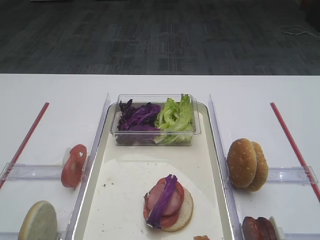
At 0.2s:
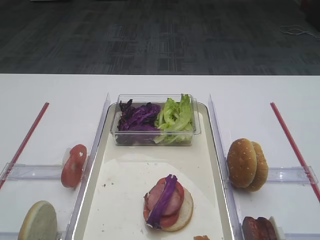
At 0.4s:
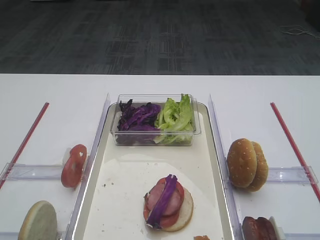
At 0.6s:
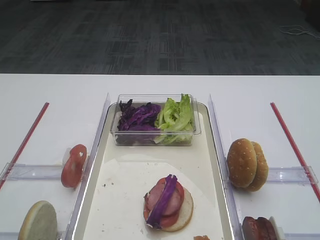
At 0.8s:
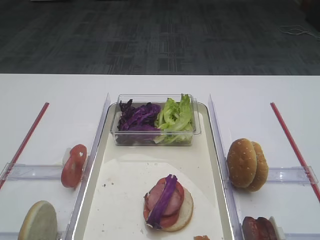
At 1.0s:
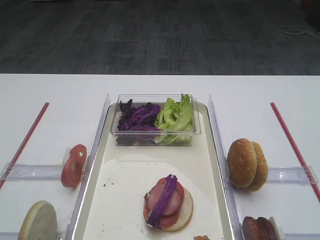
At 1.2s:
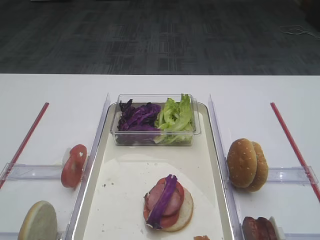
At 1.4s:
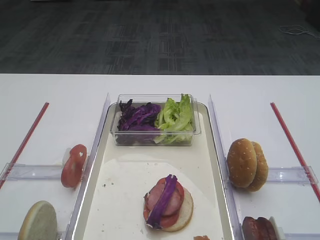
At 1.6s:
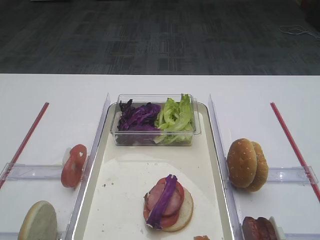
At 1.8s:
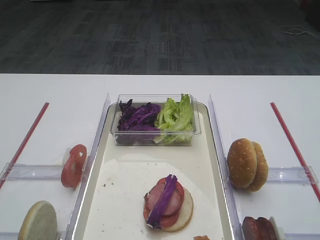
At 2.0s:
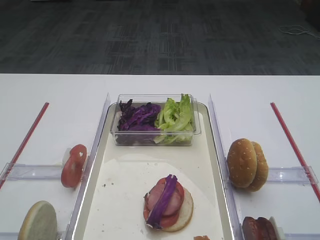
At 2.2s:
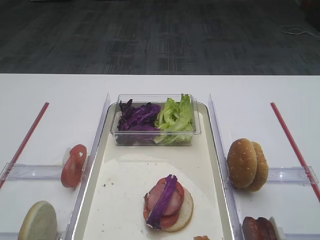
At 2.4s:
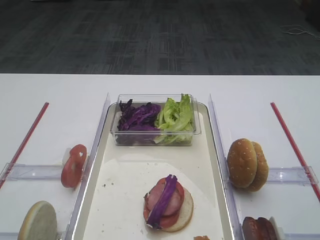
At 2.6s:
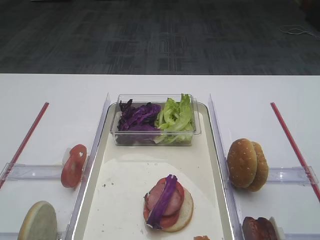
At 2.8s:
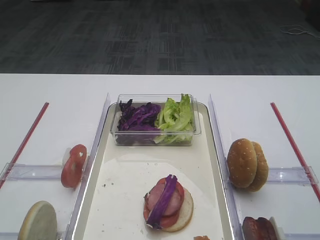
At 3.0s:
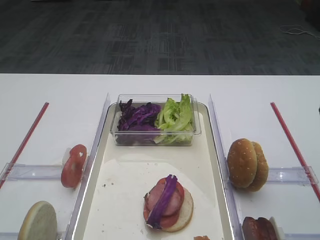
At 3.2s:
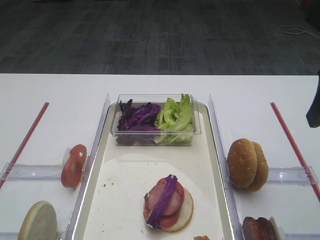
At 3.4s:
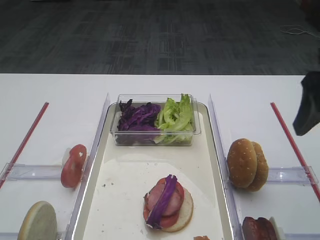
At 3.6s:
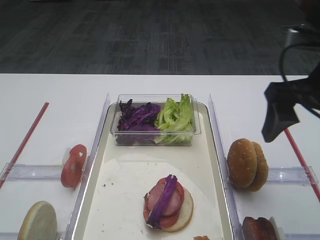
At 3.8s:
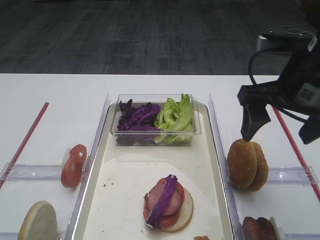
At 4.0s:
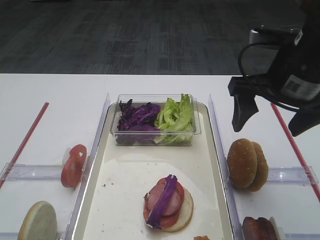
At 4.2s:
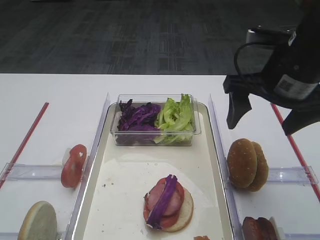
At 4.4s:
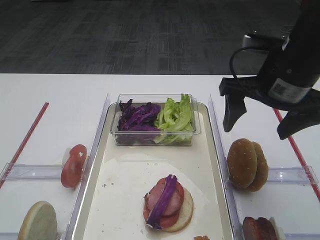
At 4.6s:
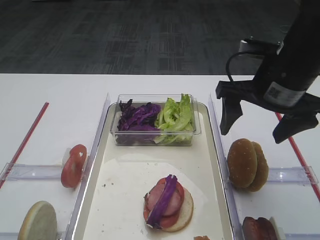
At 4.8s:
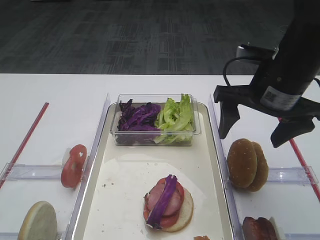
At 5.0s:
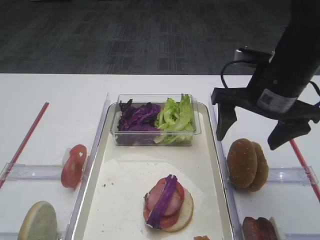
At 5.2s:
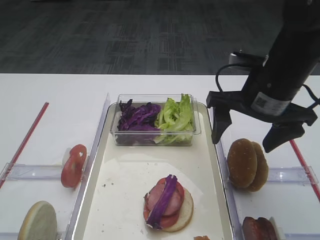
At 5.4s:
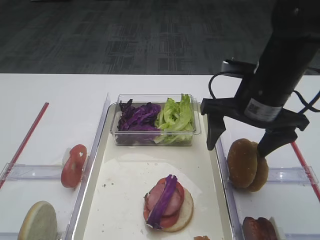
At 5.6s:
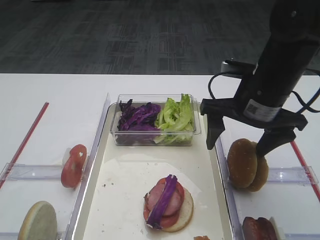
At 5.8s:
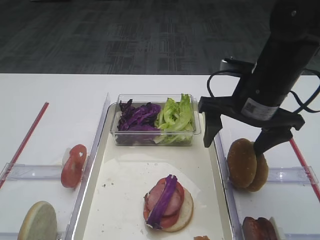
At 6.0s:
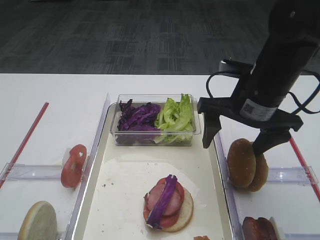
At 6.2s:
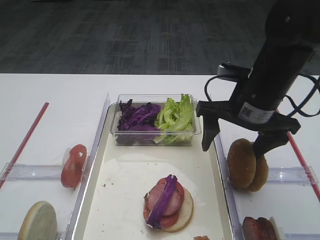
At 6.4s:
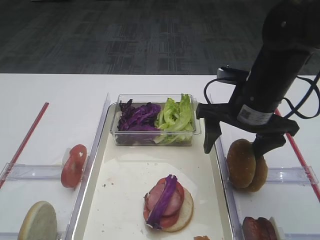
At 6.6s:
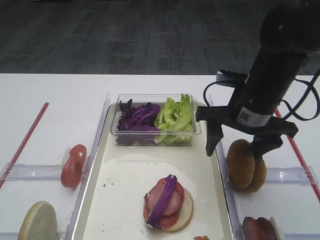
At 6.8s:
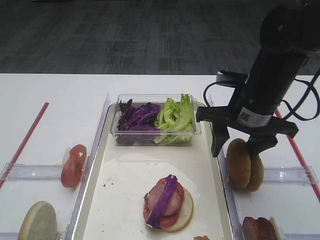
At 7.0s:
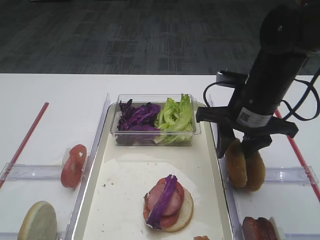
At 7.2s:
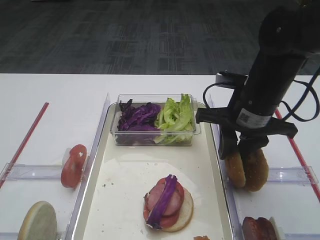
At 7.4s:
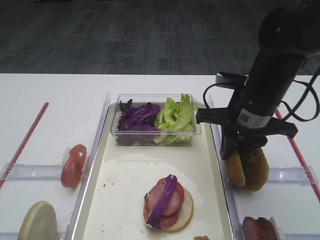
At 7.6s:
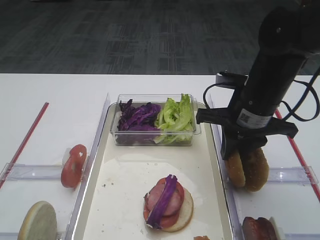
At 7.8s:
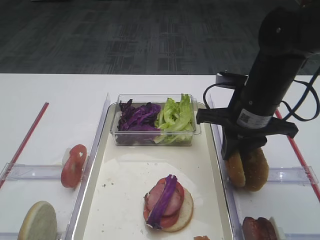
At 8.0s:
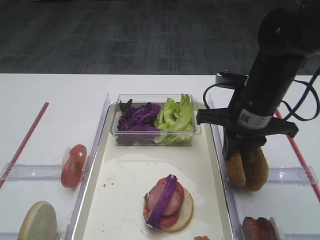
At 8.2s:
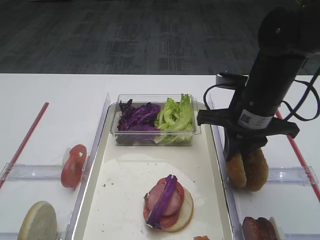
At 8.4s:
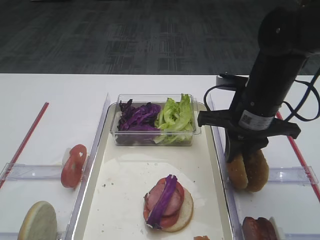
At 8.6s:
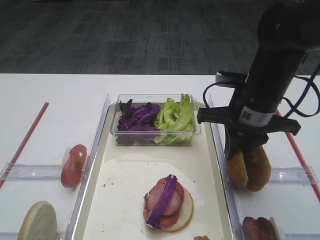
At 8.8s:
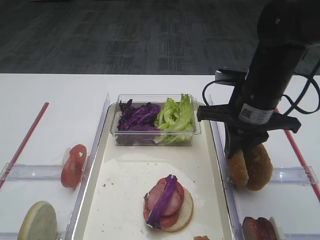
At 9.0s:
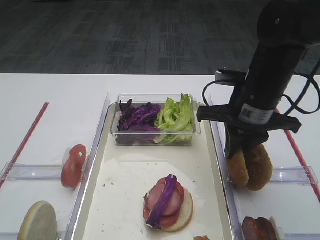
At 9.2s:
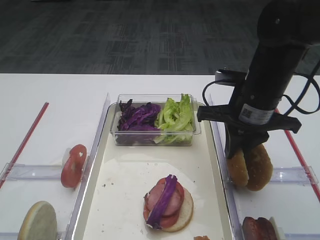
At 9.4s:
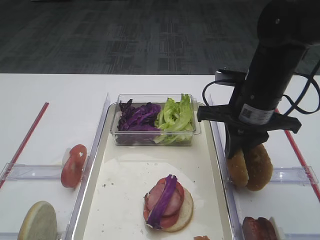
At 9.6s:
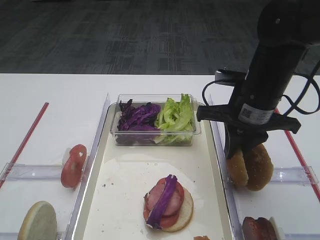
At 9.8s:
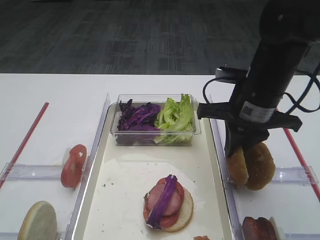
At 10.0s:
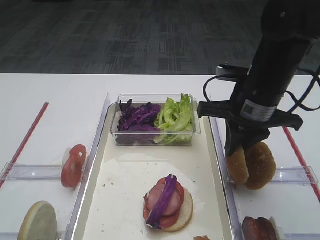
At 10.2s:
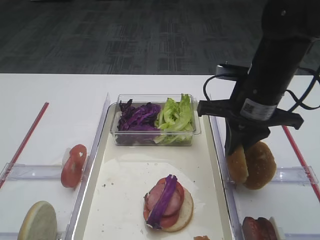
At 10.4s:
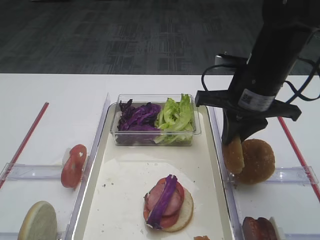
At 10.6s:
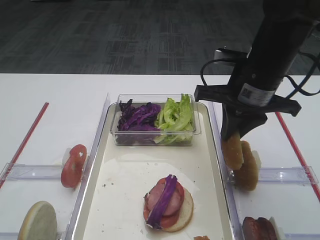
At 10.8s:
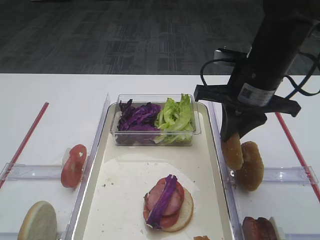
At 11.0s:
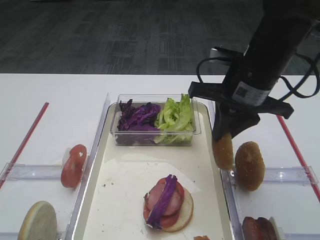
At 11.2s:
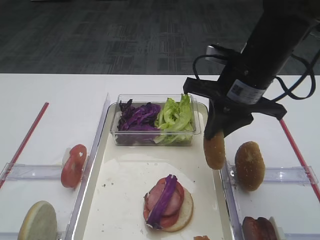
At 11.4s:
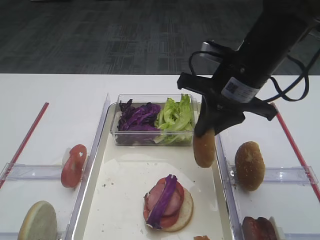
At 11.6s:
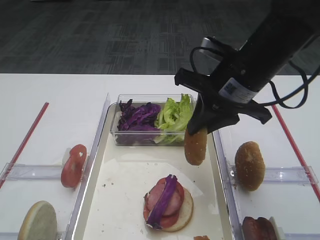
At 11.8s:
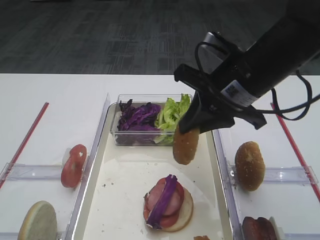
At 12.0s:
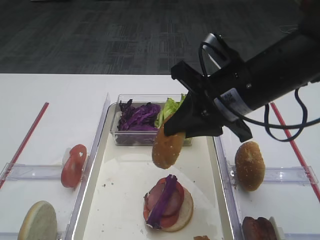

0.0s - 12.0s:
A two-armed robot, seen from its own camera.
Step, 0.0s - 11.0s: Pick up the hamburger lid with the right gripper.
3.0s - 4.4s: The right gripper is displaced to the left, forward and downward by roughly 15 cm.
4.4s - 6.0s: The right gripper ends up some 5 cm from where it was.
6.0s - 7.6s: The right gripper closes its fingers.
7.6s - 9.0s: Both grippers stay put.
9.0s - 10.4s: The grippers stay close to where they were, moving slightly.
10.4s - 12.0s: The right gripper changes place by about 5 cm.

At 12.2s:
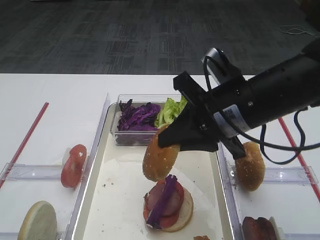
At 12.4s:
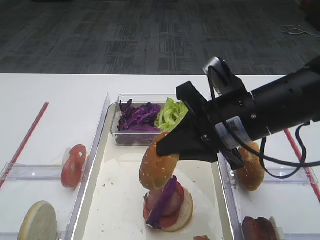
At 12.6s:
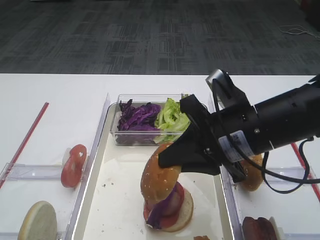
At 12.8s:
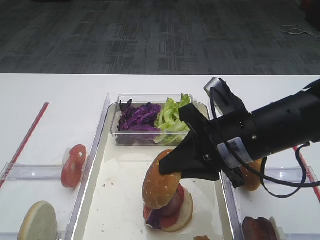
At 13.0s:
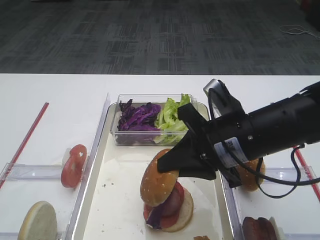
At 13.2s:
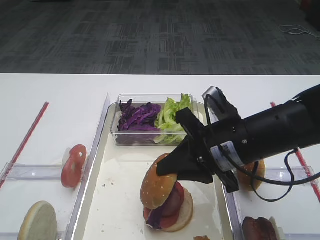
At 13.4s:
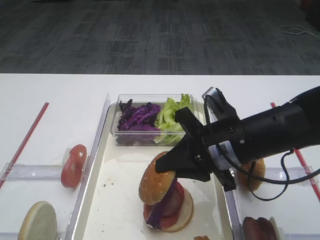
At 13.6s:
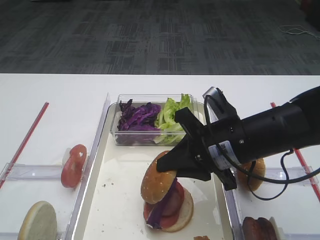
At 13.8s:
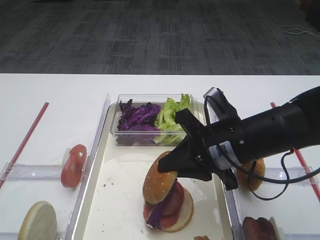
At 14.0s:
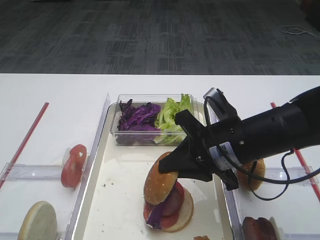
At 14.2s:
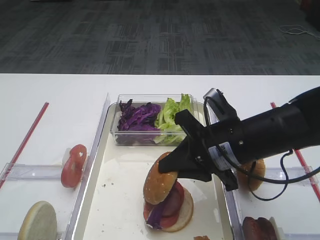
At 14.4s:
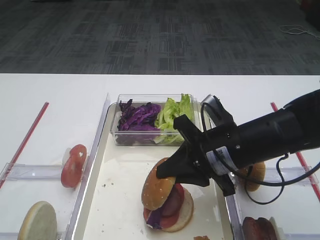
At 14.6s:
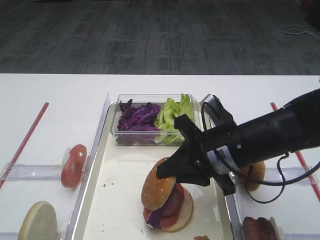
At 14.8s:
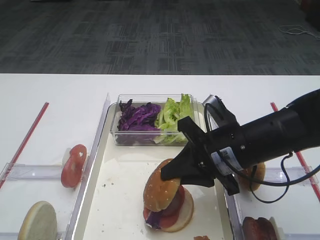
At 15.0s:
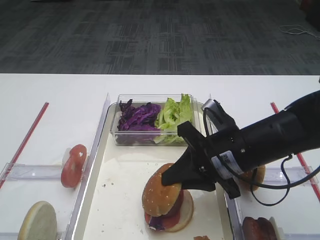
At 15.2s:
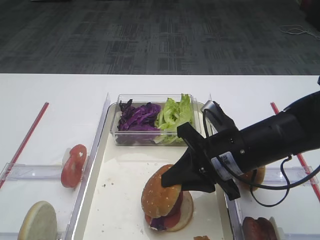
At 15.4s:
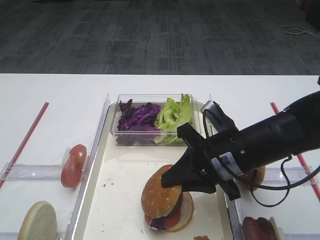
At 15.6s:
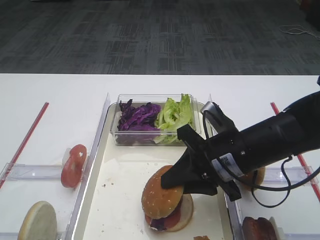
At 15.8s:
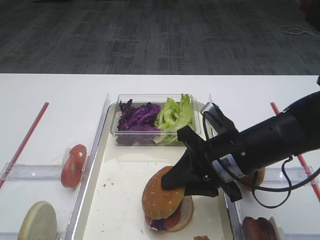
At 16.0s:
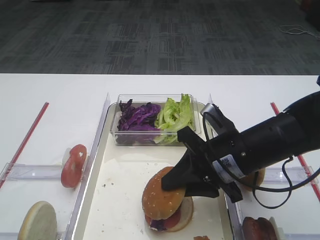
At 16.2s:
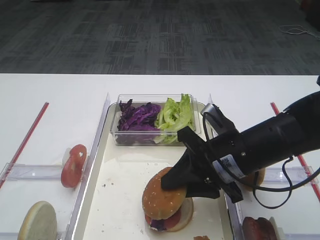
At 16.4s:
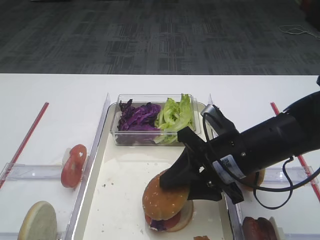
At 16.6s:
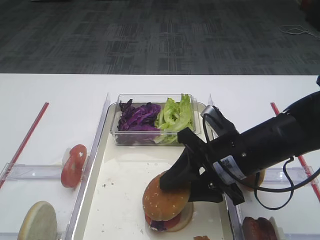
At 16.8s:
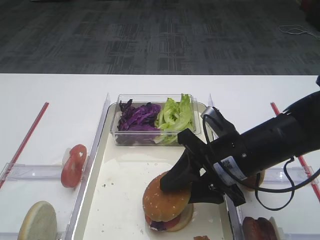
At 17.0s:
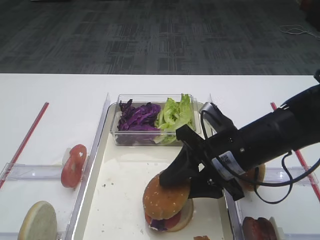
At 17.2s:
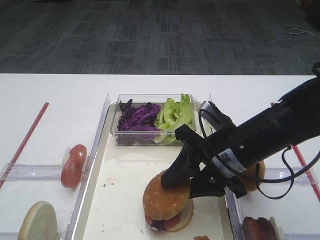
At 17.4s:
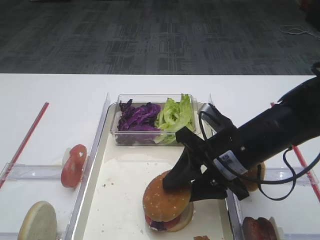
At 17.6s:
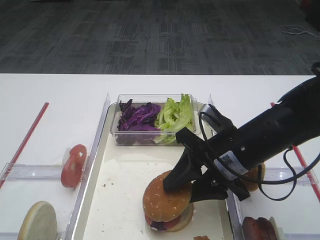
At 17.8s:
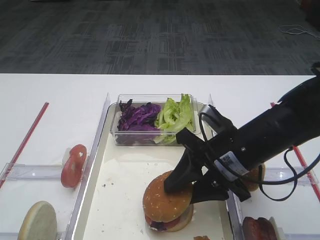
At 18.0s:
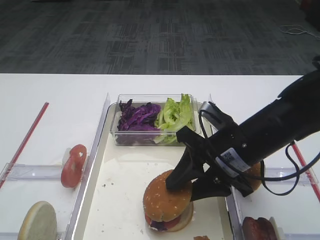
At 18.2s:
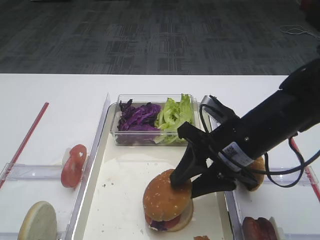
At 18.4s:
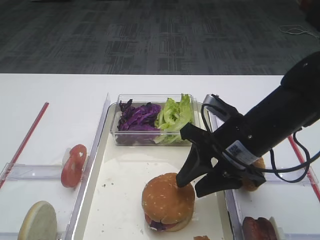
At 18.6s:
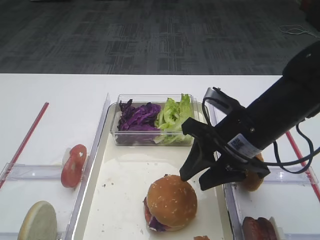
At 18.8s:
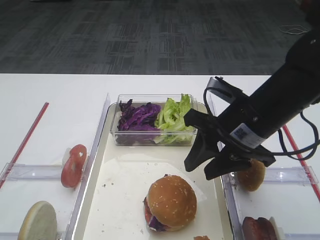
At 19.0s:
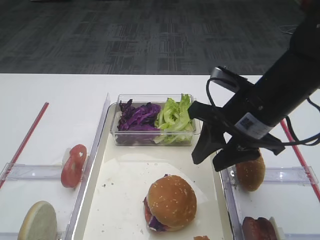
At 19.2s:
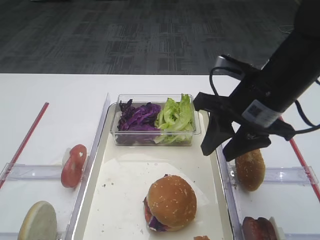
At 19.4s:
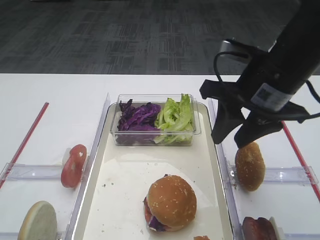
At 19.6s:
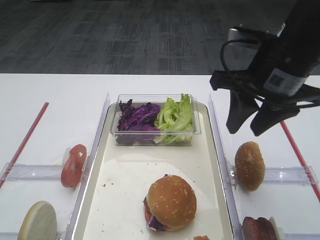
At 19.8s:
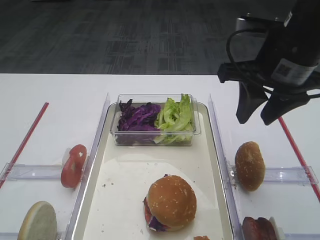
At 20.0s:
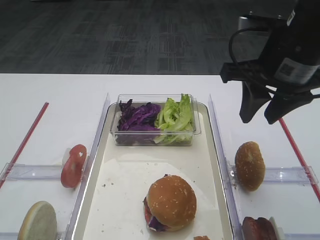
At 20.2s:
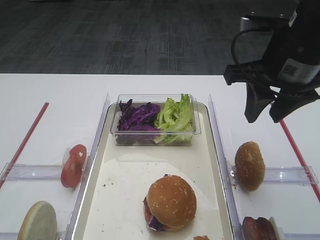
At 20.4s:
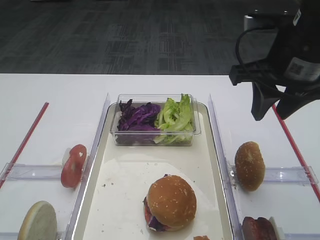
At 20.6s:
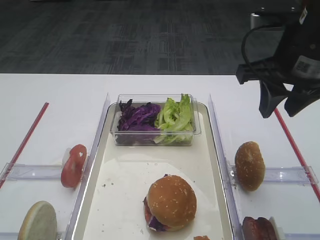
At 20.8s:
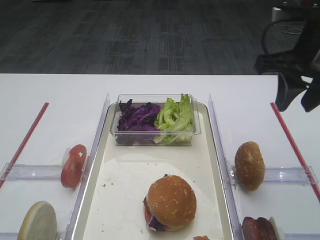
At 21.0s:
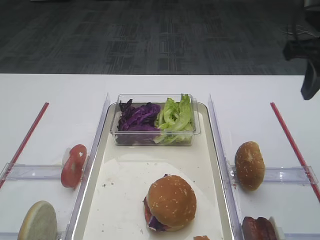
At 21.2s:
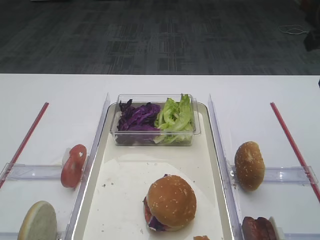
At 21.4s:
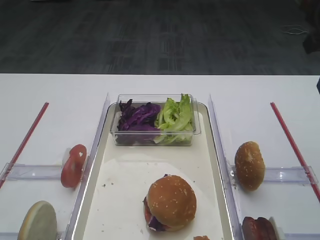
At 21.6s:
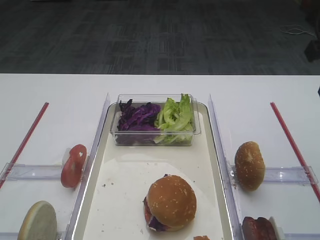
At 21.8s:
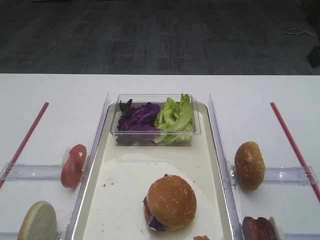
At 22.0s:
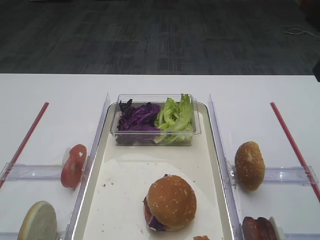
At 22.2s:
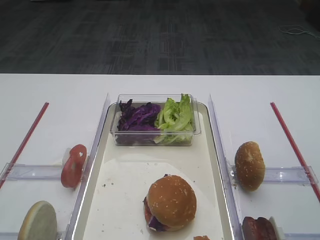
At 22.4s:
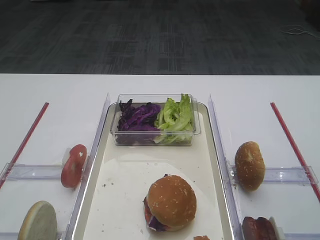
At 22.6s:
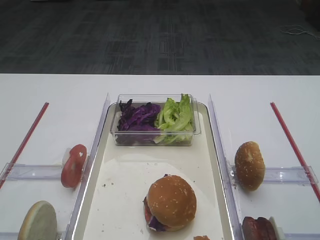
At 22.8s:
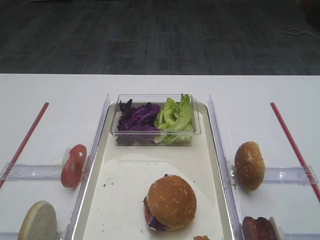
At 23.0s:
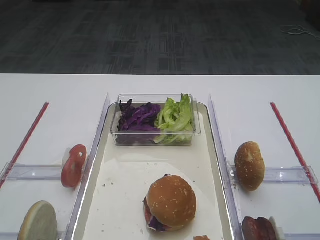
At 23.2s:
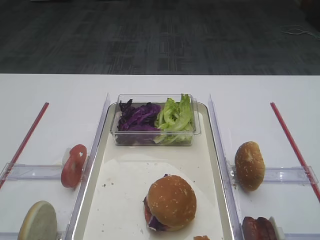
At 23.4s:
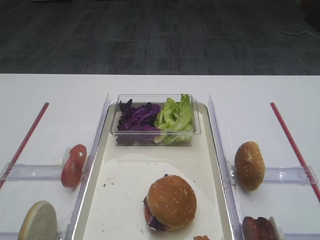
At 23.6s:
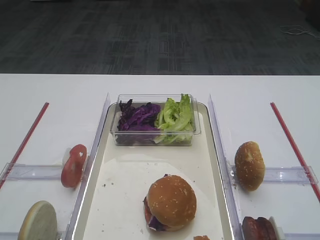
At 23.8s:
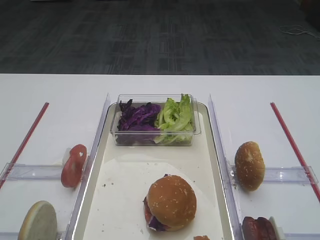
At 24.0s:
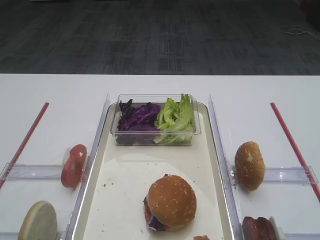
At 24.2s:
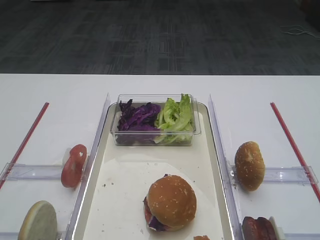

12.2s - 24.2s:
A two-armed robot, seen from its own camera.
Step, 12.2s - 18.4s: Place the hamburger lid on the purple cabbage with the right gripper.
12.2s - 13.8s: The right gripper shifts some 5 cm downward.
13.8s - 15.2s: The grippers stay close to where they were, moving slightly.
15.2s - 16.6s: The right gripper opens.
16.6s - 18.2s: The grippers move only a little.
18.2s - 19.8s: The right gripper travels upward by some 15 cm.
19.8s - 21.2s: The right gripper is displaced to the right by roughly 10 cm.
